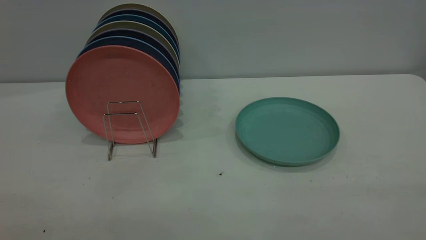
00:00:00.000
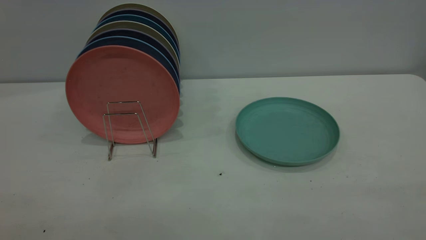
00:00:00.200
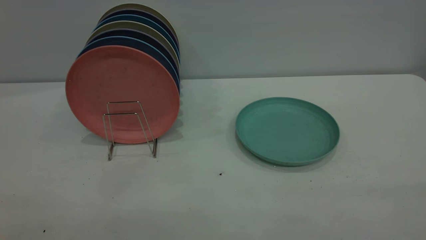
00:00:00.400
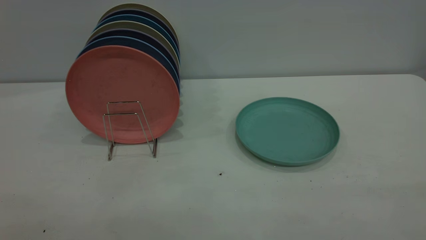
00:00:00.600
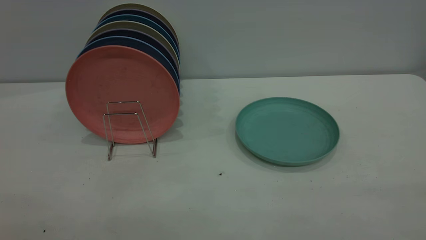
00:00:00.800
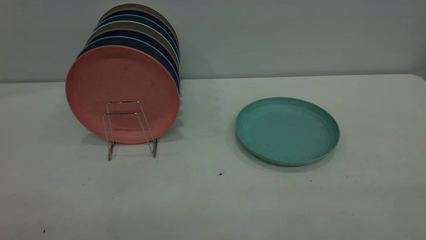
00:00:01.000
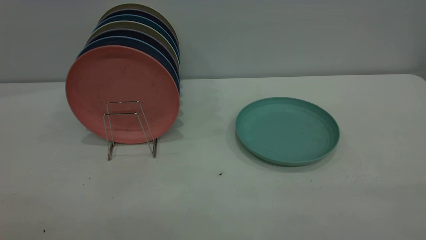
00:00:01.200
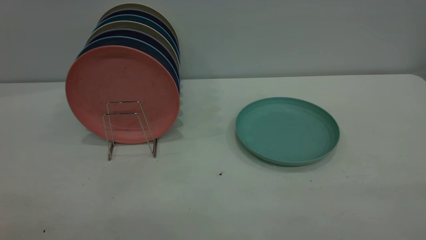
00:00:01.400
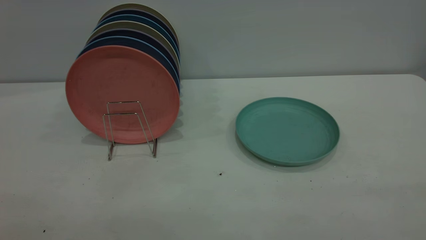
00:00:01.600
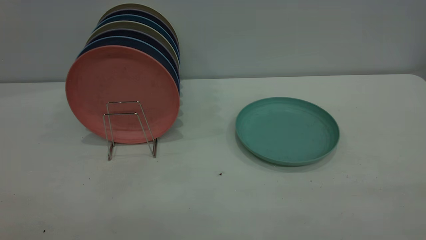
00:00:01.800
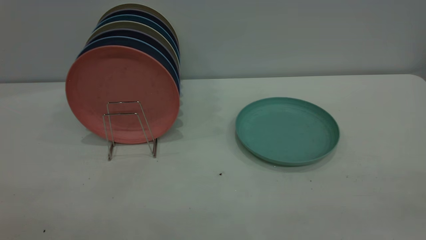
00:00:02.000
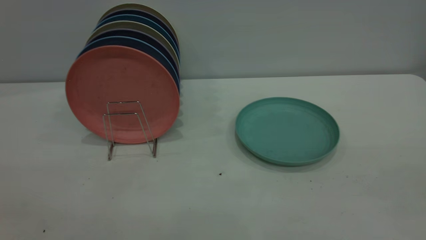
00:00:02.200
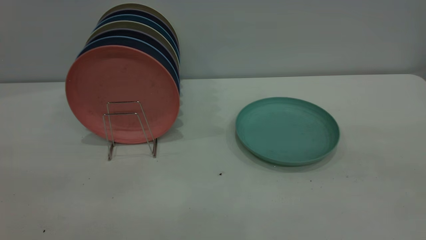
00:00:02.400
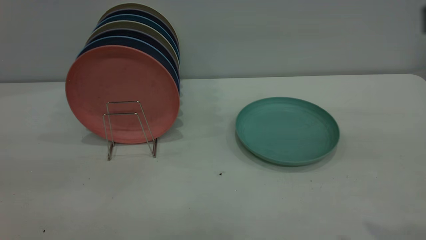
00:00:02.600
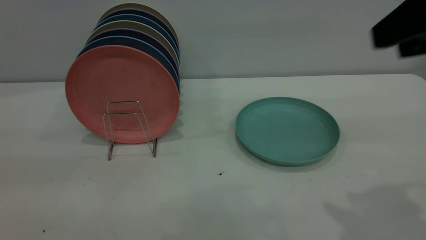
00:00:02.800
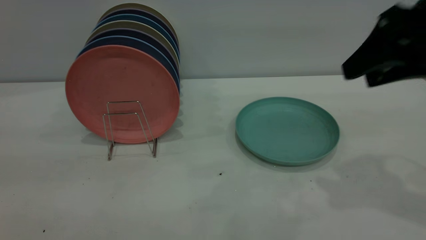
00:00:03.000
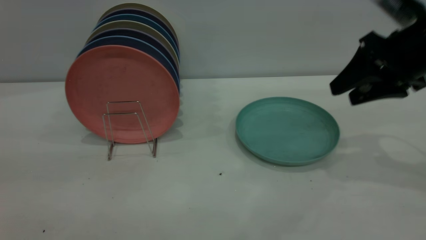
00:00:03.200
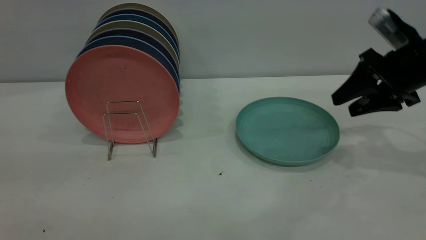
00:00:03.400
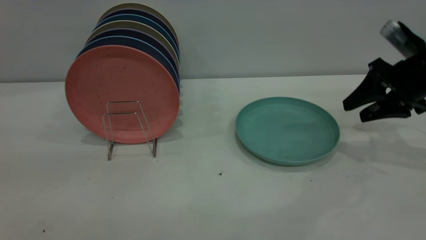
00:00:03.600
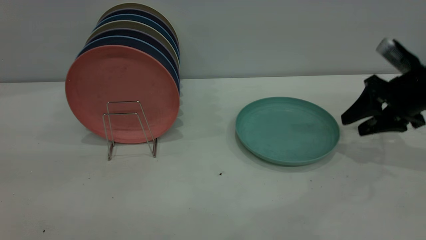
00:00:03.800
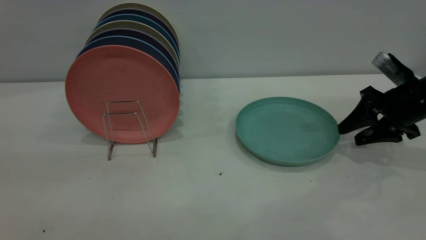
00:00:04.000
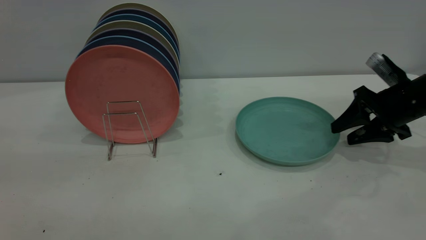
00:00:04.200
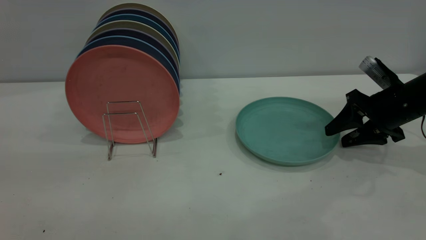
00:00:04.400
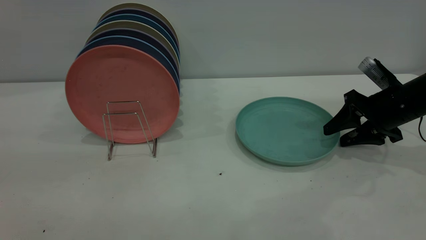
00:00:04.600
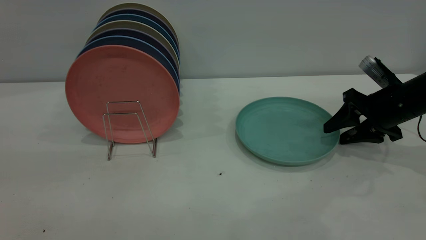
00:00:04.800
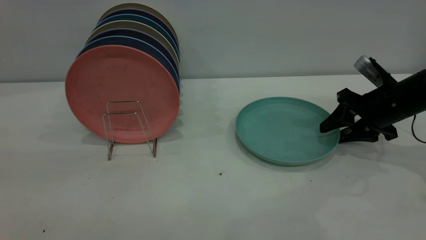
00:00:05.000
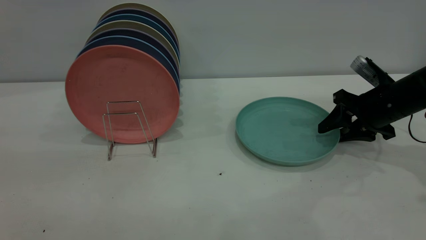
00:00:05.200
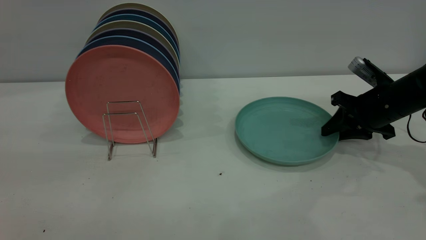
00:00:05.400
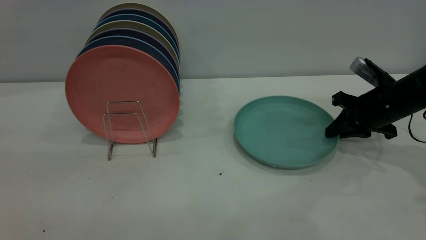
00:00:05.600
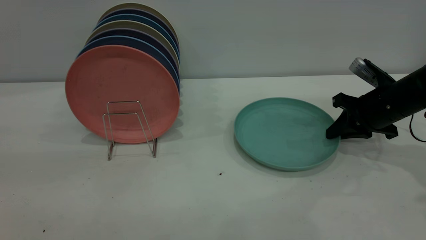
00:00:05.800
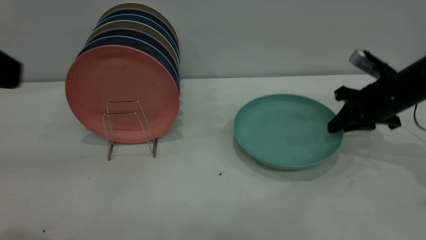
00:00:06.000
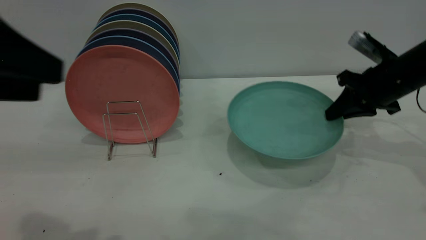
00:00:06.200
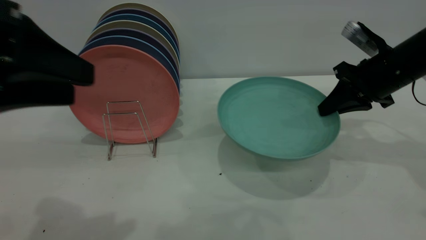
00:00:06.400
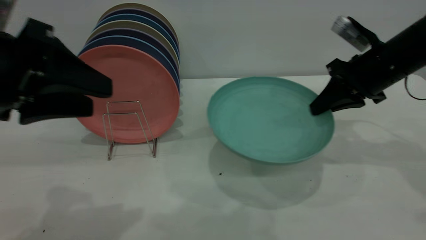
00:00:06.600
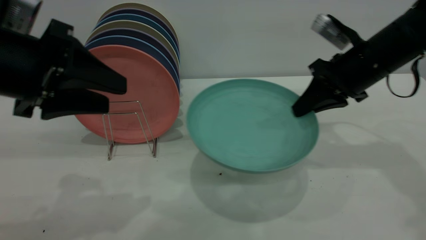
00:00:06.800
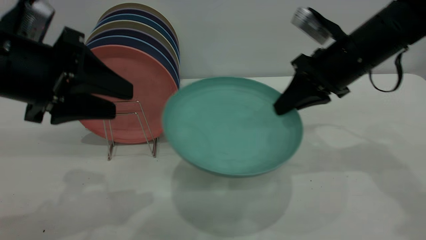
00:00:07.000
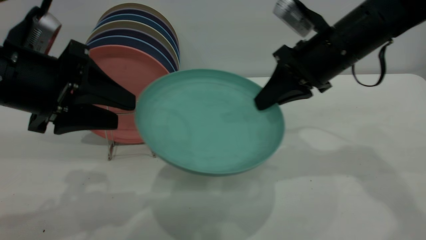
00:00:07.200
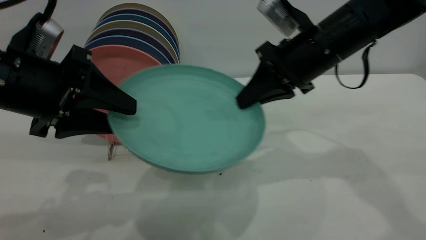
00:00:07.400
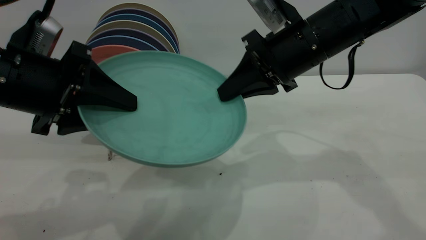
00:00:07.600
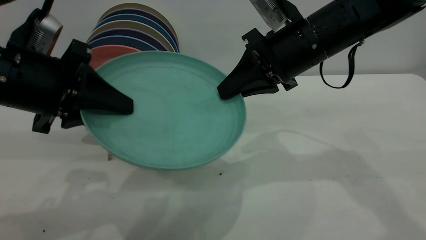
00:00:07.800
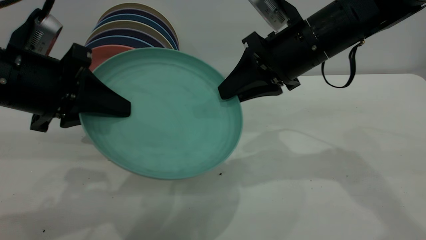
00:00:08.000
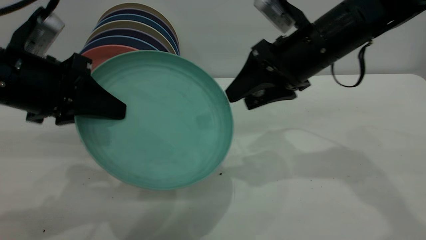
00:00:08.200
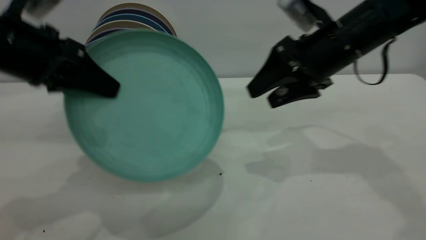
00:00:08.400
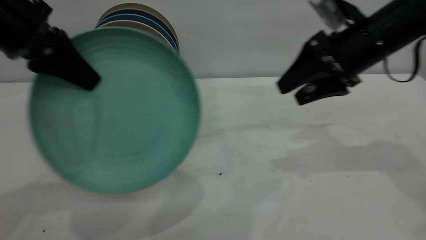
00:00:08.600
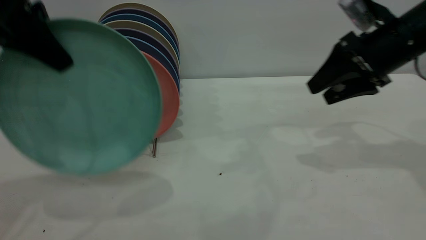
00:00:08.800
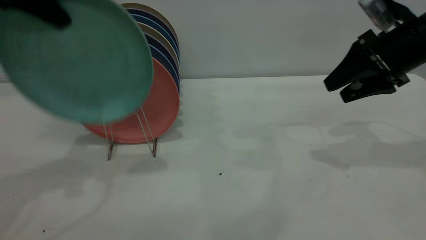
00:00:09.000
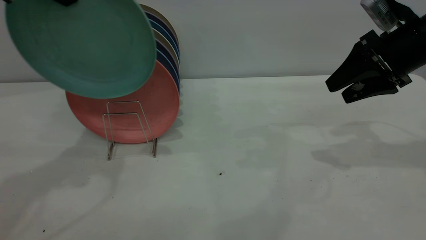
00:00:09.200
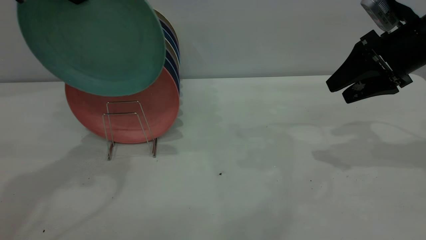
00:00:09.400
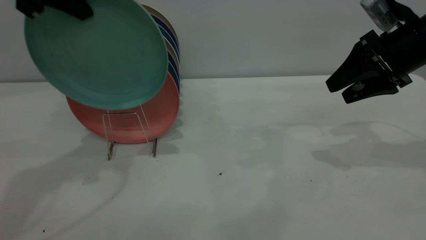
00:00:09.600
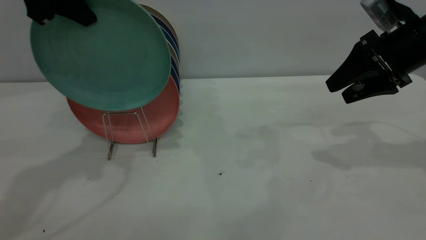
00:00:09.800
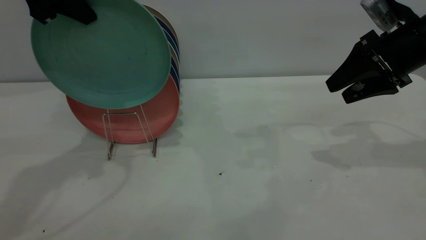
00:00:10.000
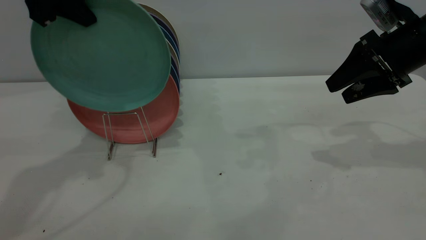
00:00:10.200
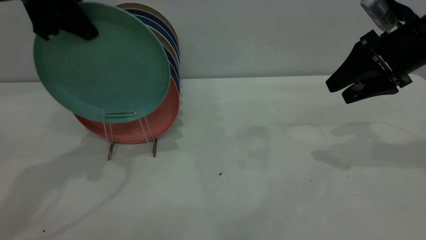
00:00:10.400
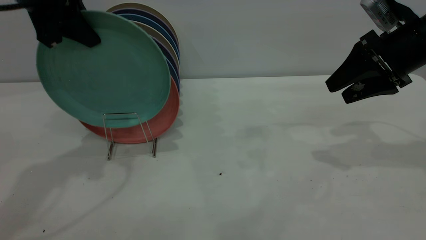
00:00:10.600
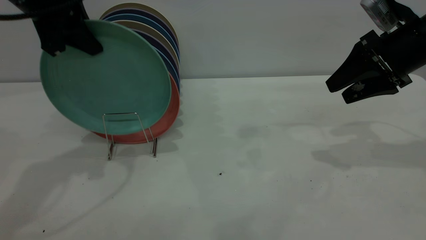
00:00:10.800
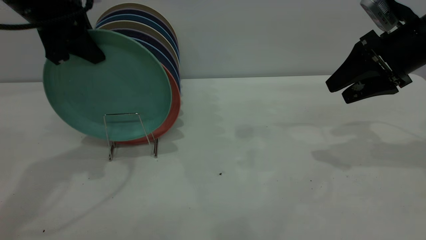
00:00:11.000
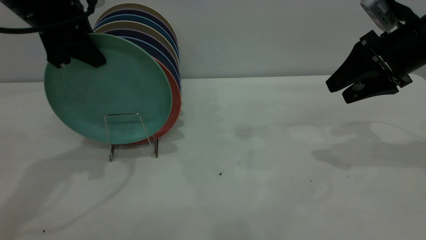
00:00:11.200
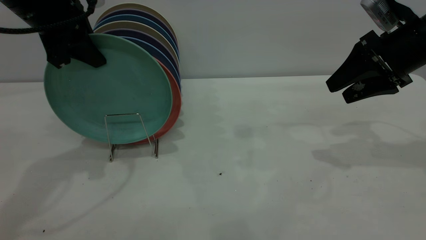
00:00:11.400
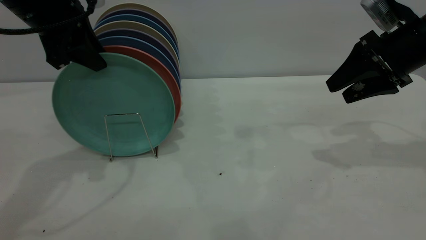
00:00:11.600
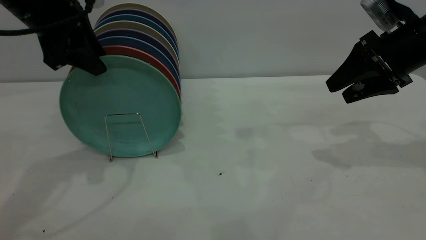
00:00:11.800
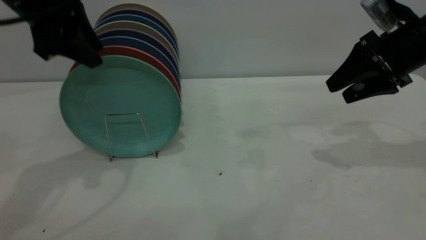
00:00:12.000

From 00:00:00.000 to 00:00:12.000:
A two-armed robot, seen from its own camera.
Task of the whole recording: the right gripper grasp the green plate, the right gripper pass the green plate to the left gripper, and the left gripper place the green plate on the plate rack.
Step, from 00:00:00.000 to 00:00:06.200: Pick up the plate with the right gripper.
Step, from 00:00:06.400 to 00:00:08.600: Pass the plate from the right gripper to the left gripper.
From 00:00:00.000 to 00:00:01.600: Neither gripper changes place.
From 00:00:01.600 to 00:00:03.000: The right gripper is displaced forward by some 35 cm.
From 00:00:03.000 to 00:00:04.400: The right gripper is displaced downward and forward by roughly 20 cm.
From 00:00:04.400 to 00:00:06.000: The right gripper closes, while the left gripper ends up about 5 cm from where it was.
From 00:00:06.000 to 00:00:07.600: The left gripper travels downward and forward by some 15 cm, while the right gripper shifts roughly 20 cm to the left and upward.
From 00:00:07.600 to 00:00:09.000: The left gripper is displaced upward and forward by some 20 cm, and closes up, while the right gripper heads to the right, covering about 15 cm, and opens up.
From 00:00:09.000 to 00:00:10.400: The left gripper moves about 5 cm.
From 00:00:10.400 to 00:00:12.000: The left gripper opens its fingers.

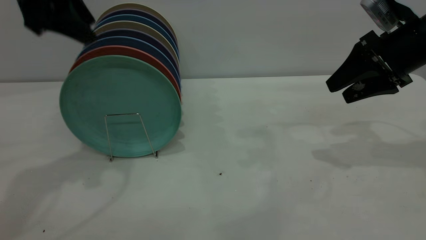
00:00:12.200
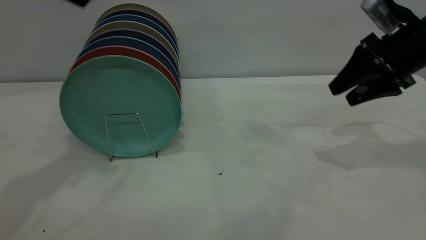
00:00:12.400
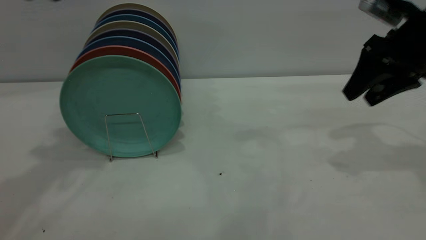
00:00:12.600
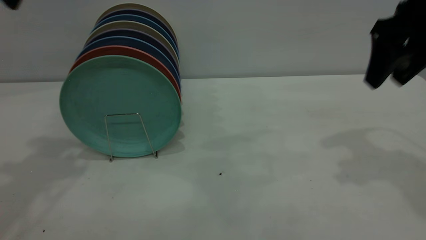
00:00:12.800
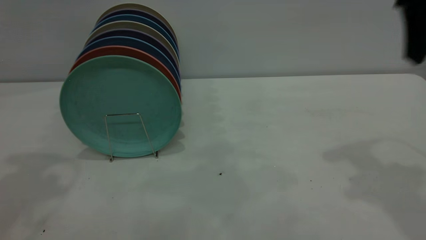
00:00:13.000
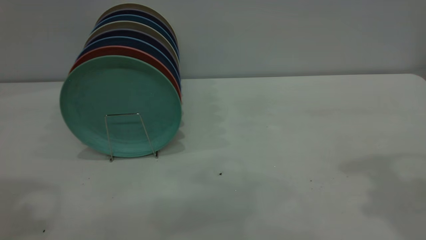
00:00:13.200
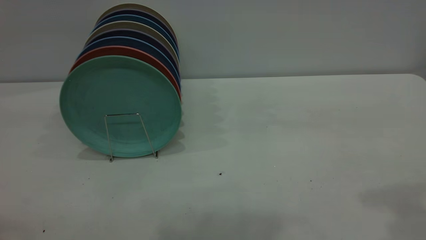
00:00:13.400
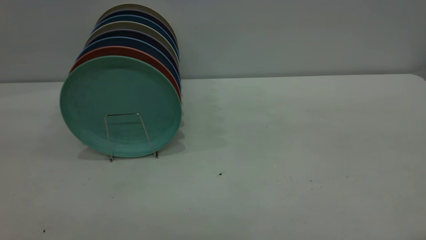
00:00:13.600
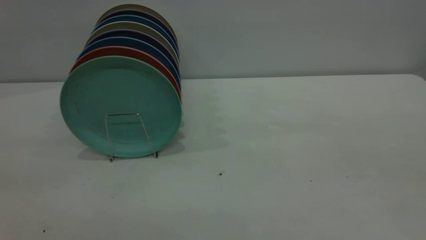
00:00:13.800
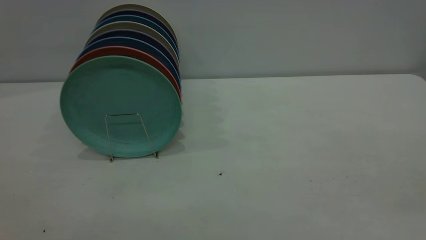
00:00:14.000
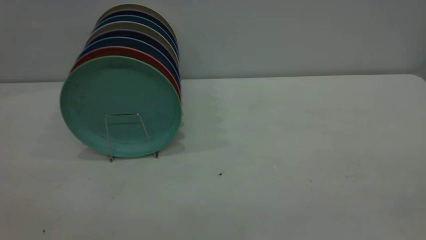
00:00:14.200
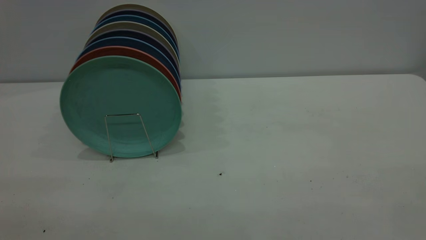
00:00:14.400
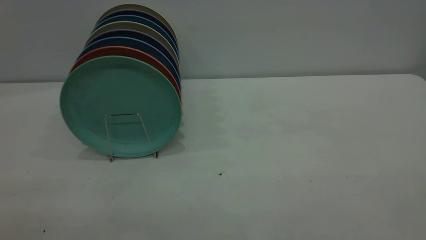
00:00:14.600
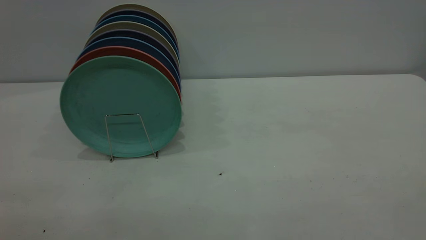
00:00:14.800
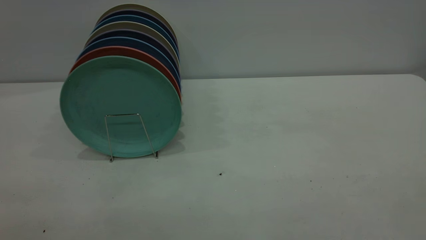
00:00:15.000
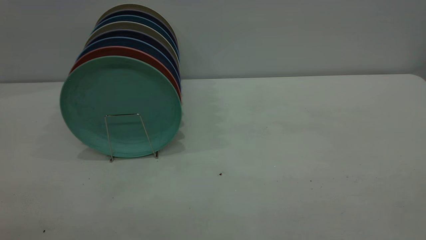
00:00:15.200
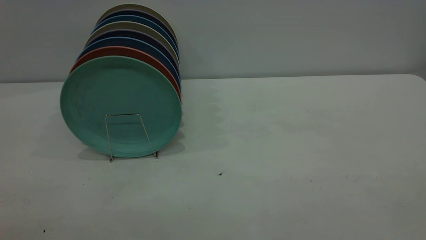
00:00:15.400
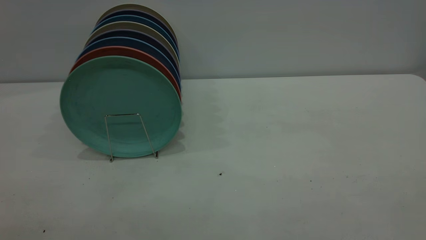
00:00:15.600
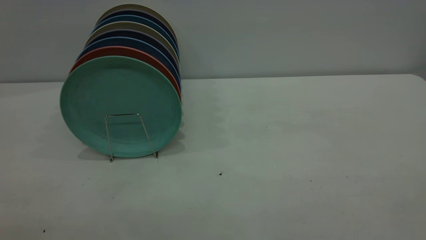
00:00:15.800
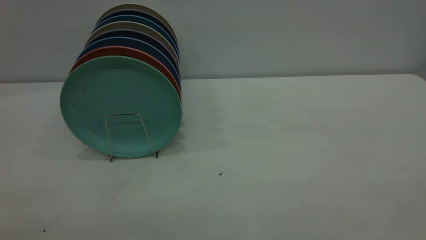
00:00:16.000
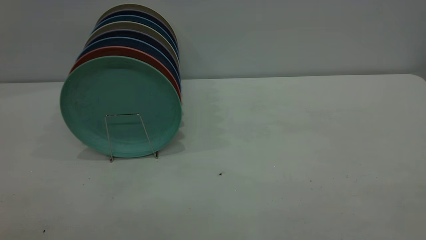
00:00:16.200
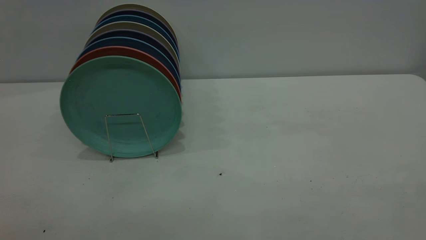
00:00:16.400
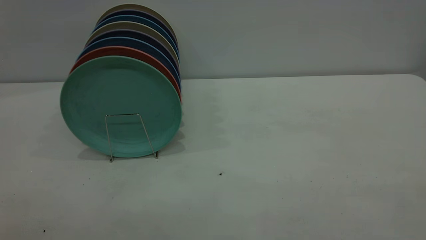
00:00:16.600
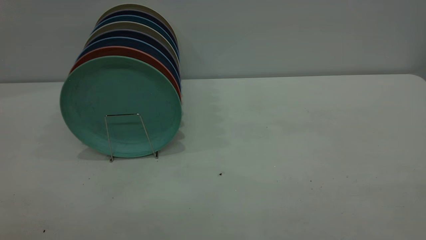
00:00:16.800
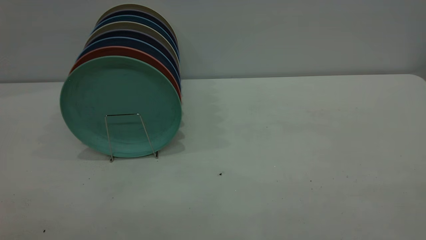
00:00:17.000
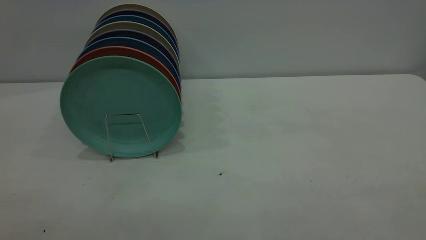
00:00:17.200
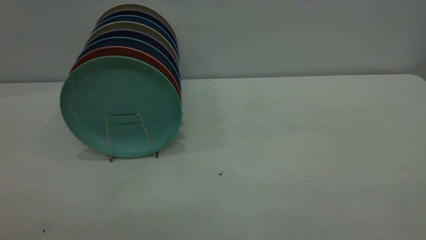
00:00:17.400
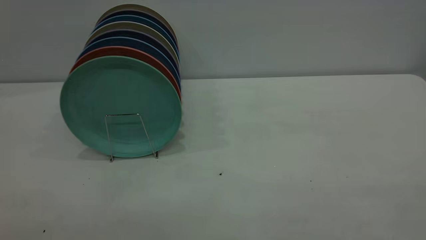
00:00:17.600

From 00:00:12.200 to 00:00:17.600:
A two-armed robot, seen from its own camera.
Task of the whole recording: the right gripper grasp the green plate, the right gripper pass the green plate to the left gripper, and the left gripper place the green plate on the plate rack.
From 00:00:12.200 to 00:00:13.600: The grippers both shift backward and upward by approximately 35 cm.
From 00:00:16.200 to 00:00:17.600: Both grippers stay put.
